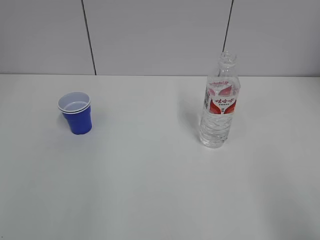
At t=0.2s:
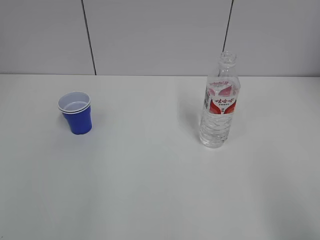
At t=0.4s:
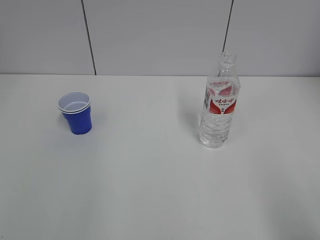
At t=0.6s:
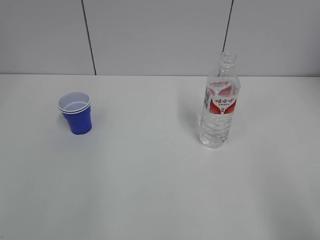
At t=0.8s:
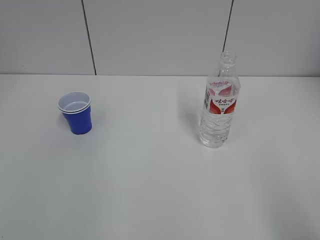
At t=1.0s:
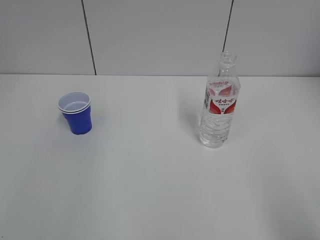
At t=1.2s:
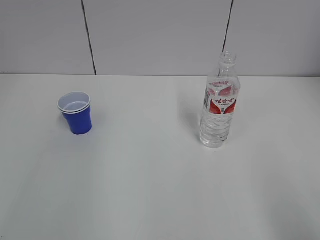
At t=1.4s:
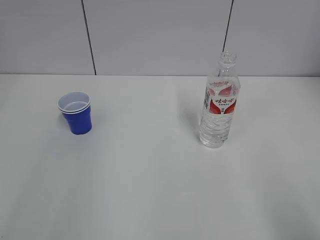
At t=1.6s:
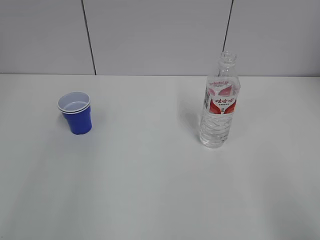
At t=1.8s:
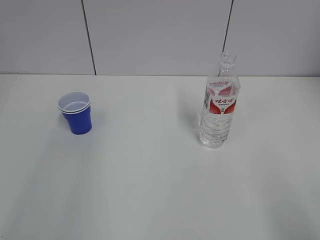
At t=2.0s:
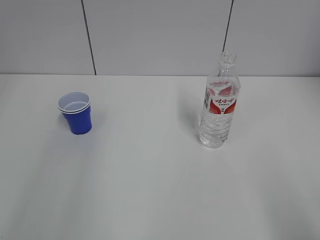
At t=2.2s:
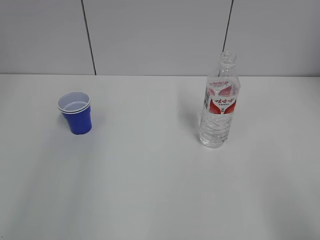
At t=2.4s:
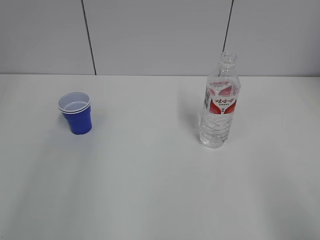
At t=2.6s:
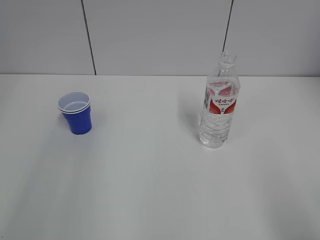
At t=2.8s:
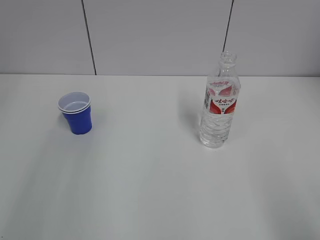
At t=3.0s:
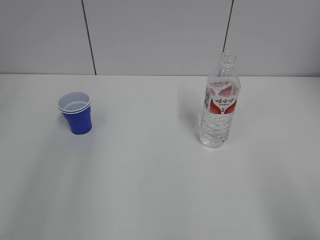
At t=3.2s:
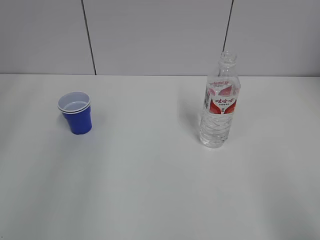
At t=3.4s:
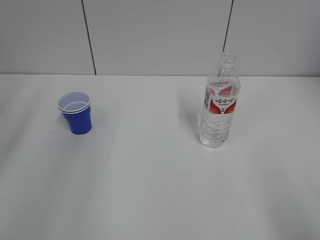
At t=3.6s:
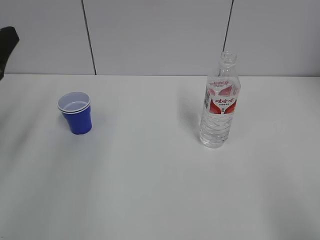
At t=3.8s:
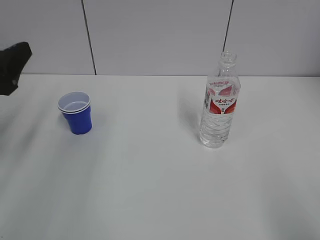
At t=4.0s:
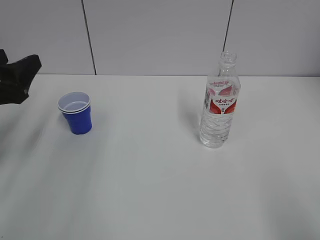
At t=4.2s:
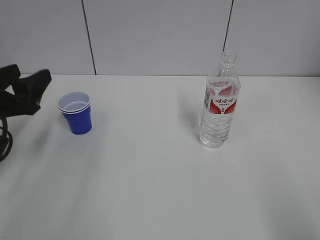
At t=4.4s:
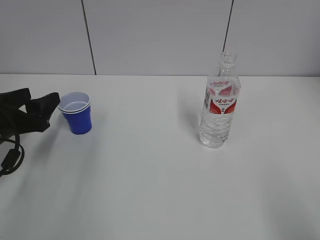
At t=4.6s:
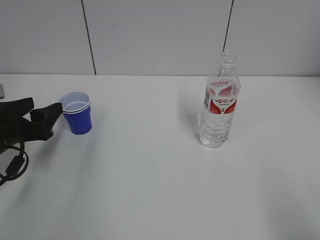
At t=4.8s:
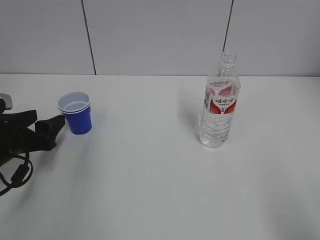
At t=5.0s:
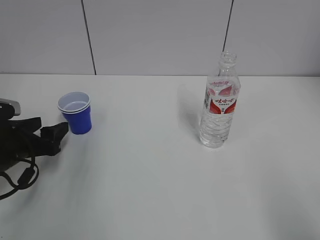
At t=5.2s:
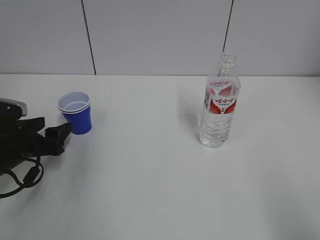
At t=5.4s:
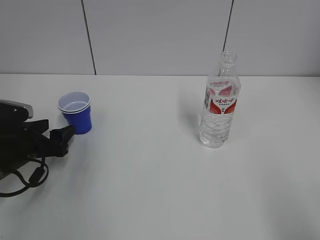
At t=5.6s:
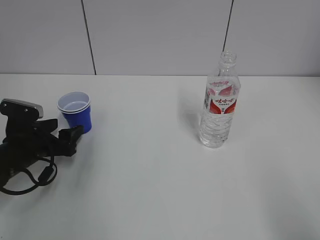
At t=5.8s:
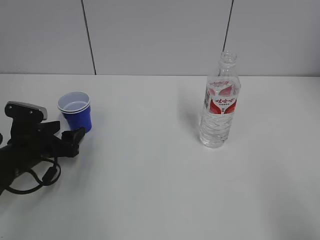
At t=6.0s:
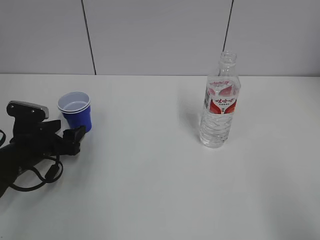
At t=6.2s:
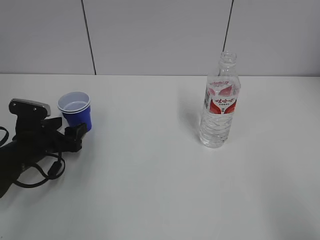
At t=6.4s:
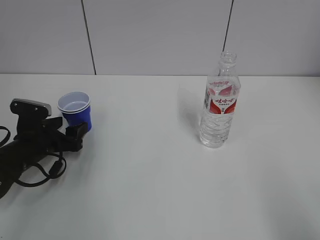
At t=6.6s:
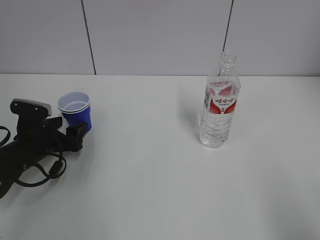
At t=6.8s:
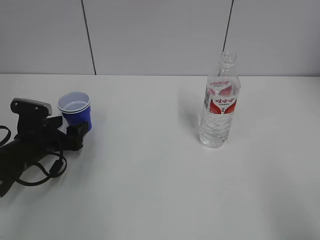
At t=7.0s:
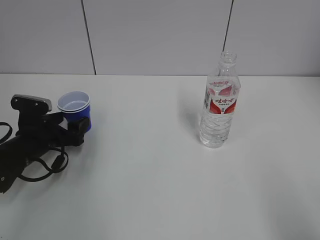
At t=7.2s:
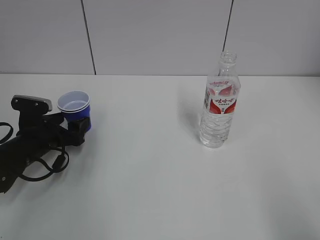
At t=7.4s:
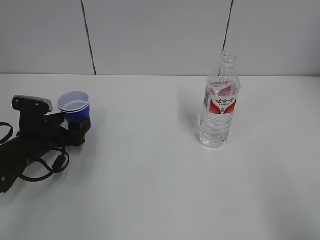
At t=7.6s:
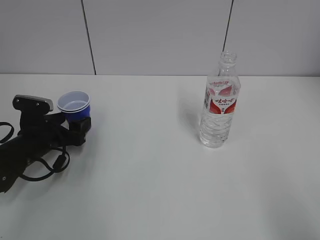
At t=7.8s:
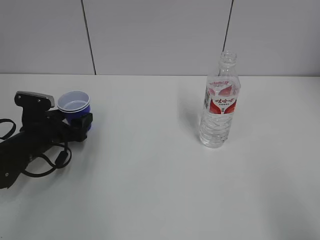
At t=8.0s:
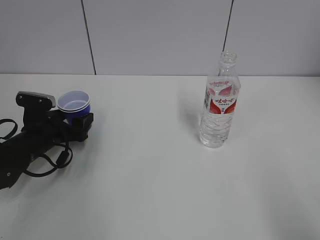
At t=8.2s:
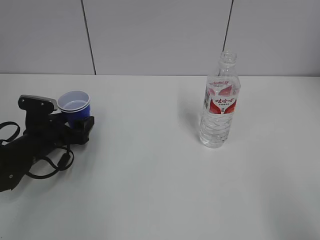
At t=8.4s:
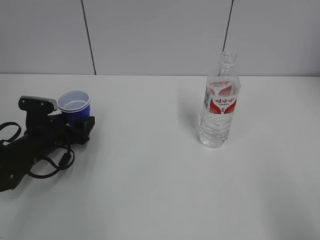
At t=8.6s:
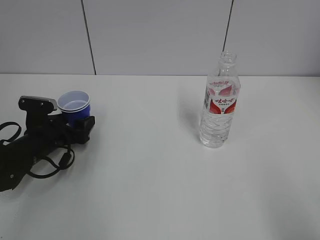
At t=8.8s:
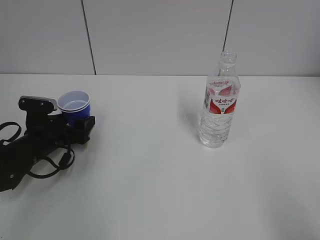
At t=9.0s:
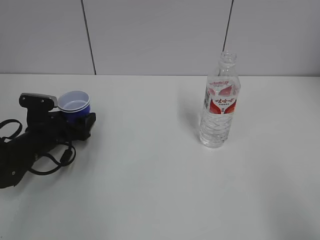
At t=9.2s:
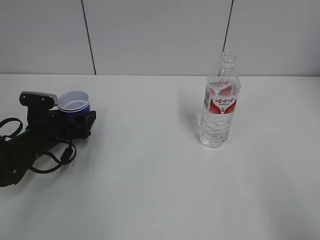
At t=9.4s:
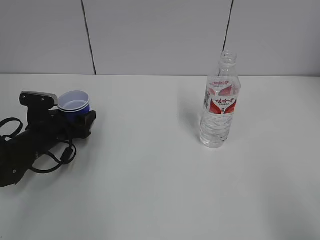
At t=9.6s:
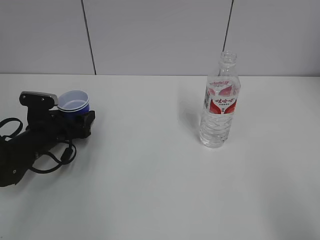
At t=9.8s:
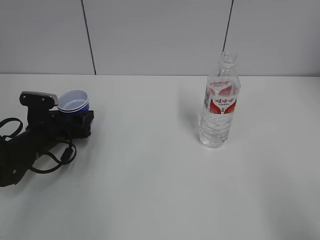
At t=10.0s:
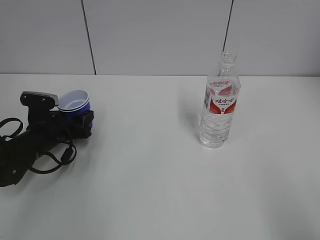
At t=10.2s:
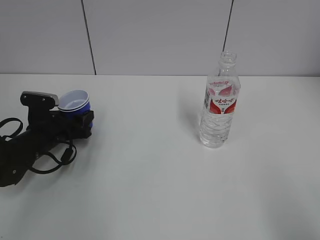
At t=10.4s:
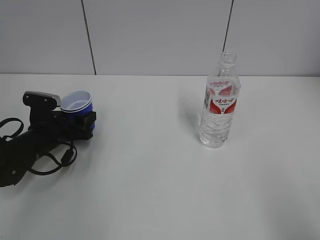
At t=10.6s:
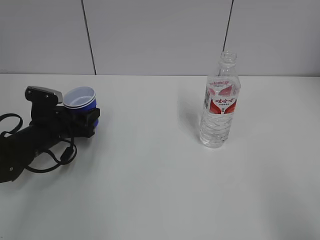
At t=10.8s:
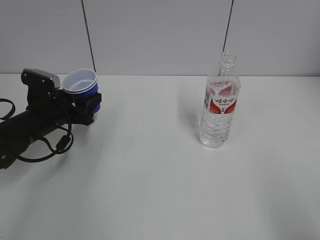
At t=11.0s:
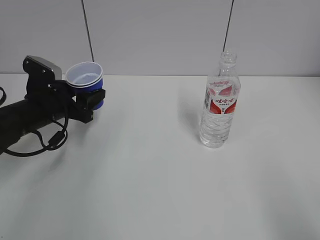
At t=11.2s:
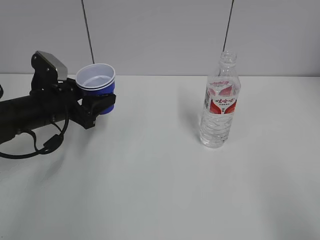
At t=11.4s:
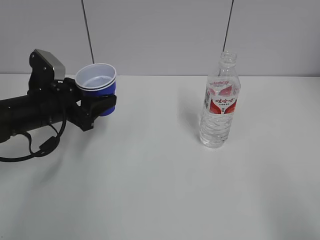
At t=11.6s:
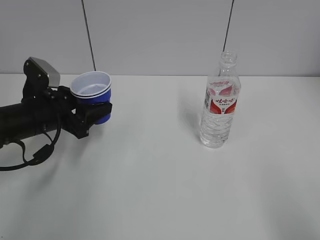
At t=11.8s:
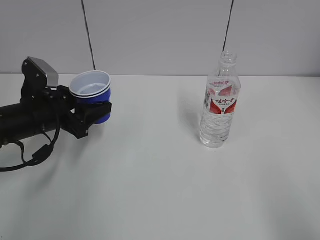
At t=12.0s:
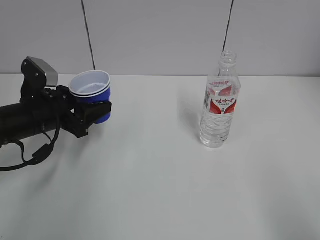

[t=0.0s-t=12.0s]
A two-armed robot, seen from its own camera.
Step, t=0.0s to t=9.8s: Grab the paper cup with the left hand.
t=3.0s to t=4.4s: The left gripper is displaced downward and forward by approximately 20 cm.
t=4.4s to t=6.0s: The left gripper travels downward by roughly 10 cm.
t=6.0s to t=9.0s: The grippers make only small movements.
t=9.0s to t=10.4s: The left gripper closes its fingers.
t=10.4s to t=12.0s: The left gripper shifts roughly 10 cm upward.

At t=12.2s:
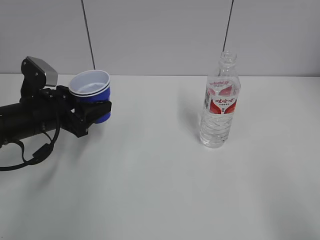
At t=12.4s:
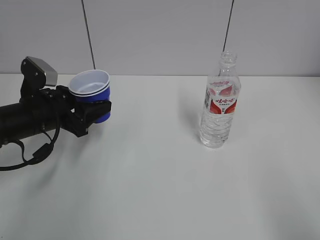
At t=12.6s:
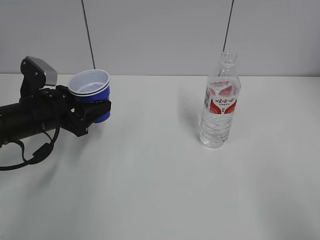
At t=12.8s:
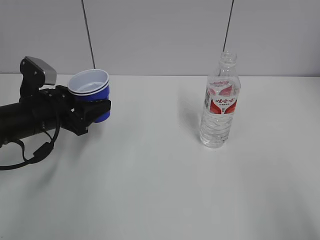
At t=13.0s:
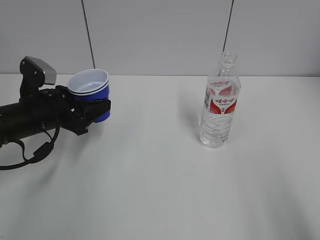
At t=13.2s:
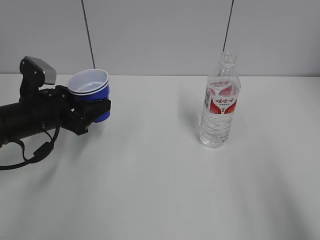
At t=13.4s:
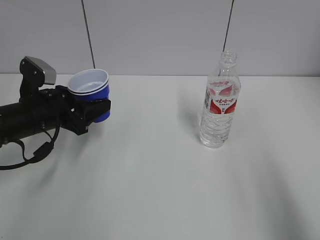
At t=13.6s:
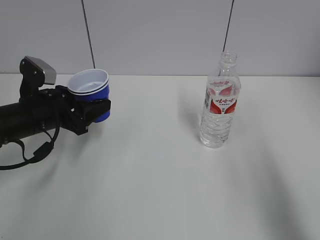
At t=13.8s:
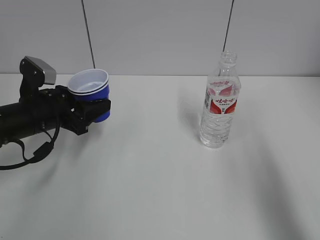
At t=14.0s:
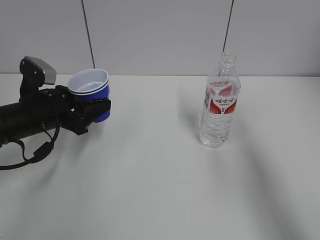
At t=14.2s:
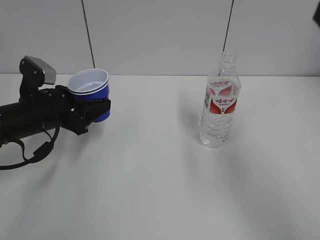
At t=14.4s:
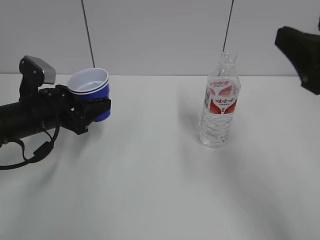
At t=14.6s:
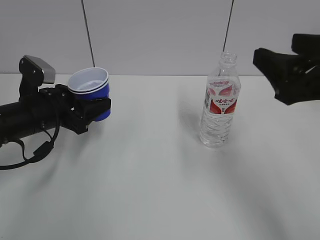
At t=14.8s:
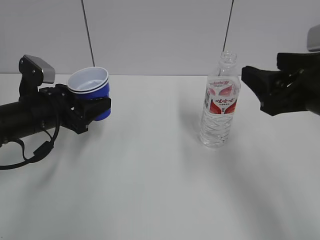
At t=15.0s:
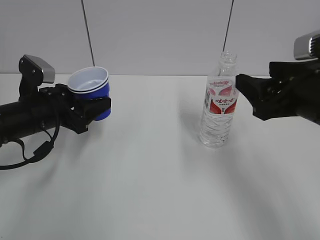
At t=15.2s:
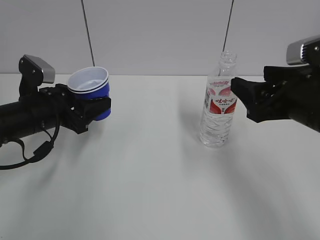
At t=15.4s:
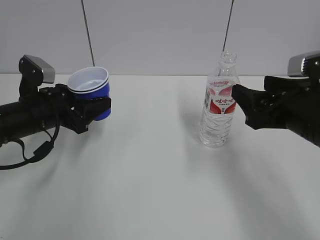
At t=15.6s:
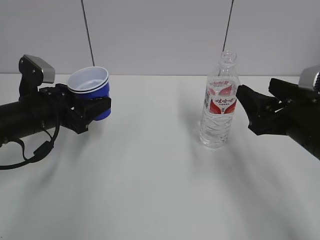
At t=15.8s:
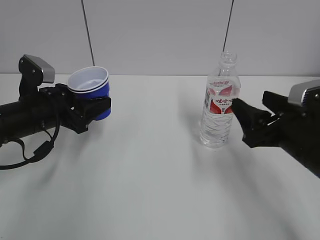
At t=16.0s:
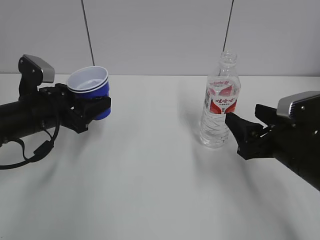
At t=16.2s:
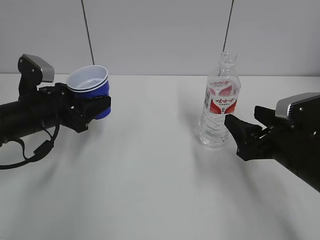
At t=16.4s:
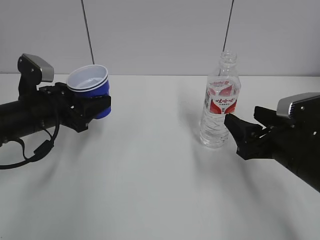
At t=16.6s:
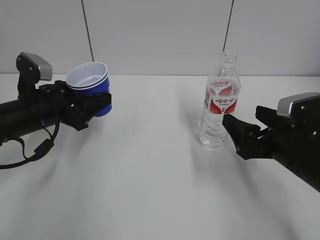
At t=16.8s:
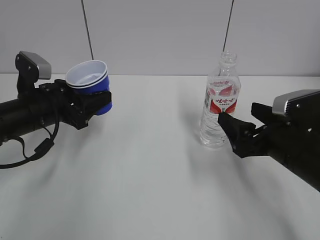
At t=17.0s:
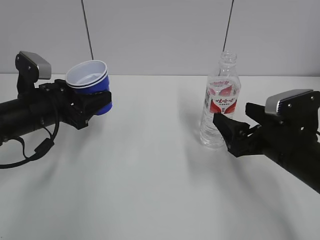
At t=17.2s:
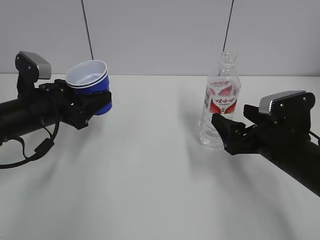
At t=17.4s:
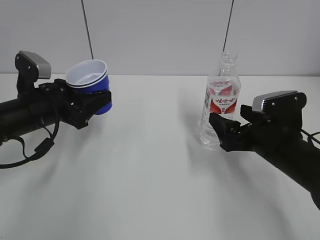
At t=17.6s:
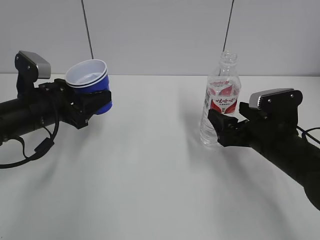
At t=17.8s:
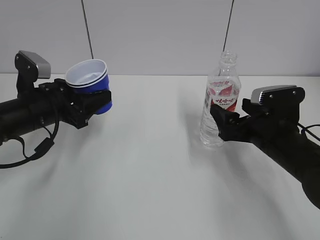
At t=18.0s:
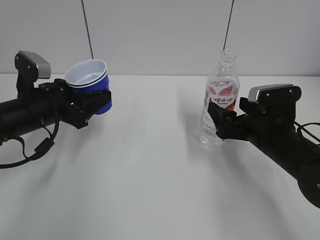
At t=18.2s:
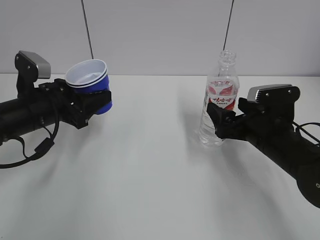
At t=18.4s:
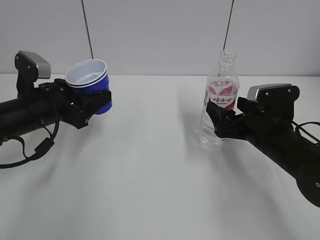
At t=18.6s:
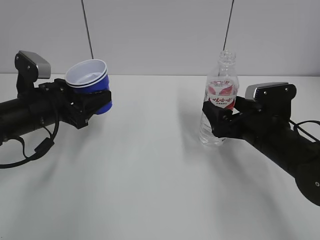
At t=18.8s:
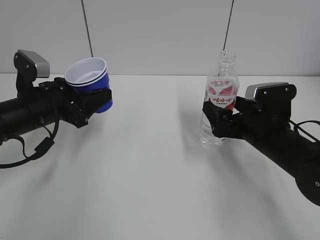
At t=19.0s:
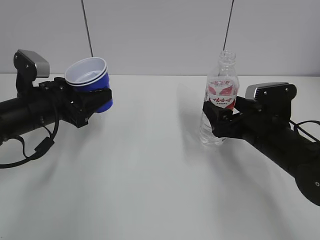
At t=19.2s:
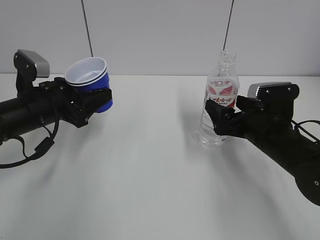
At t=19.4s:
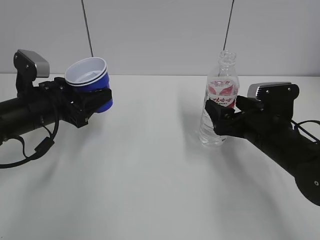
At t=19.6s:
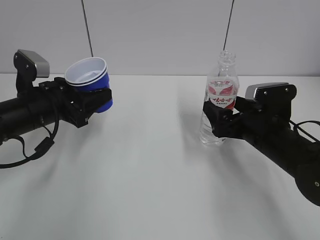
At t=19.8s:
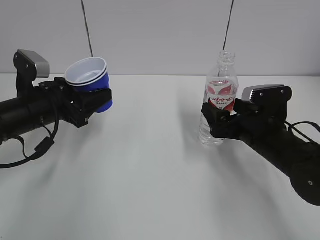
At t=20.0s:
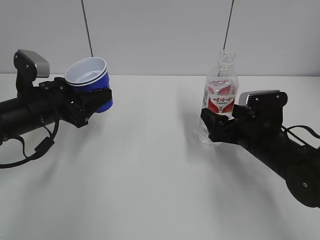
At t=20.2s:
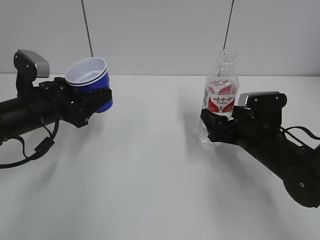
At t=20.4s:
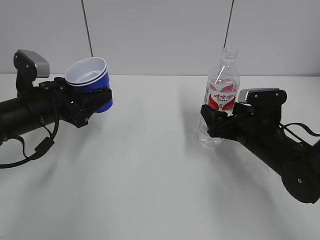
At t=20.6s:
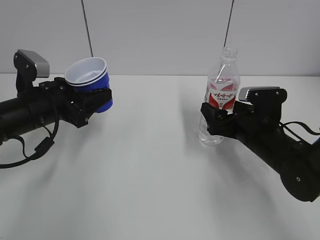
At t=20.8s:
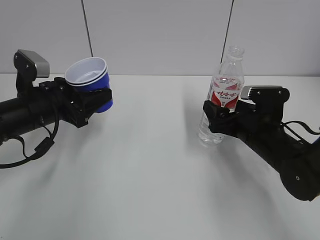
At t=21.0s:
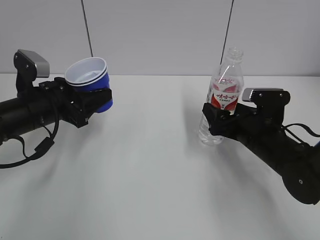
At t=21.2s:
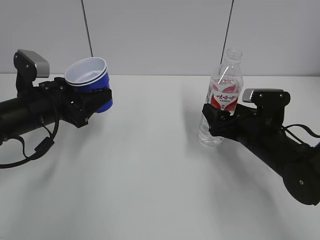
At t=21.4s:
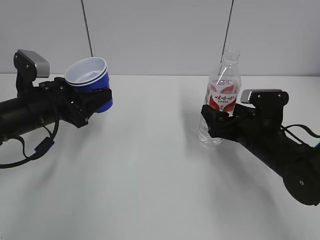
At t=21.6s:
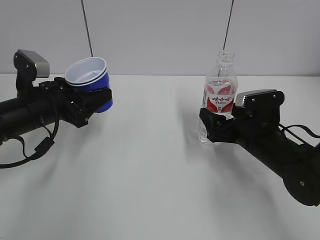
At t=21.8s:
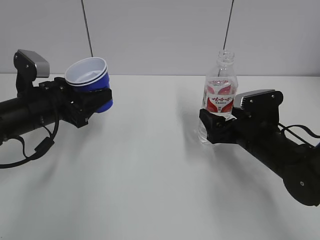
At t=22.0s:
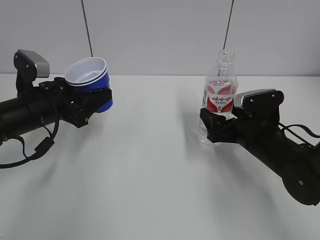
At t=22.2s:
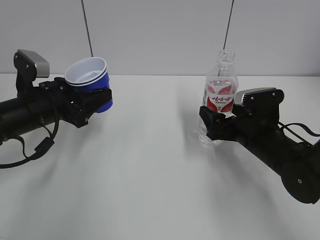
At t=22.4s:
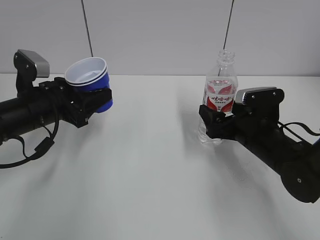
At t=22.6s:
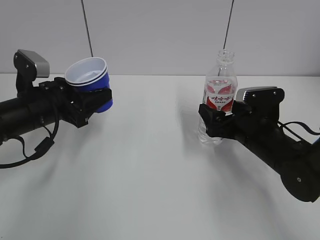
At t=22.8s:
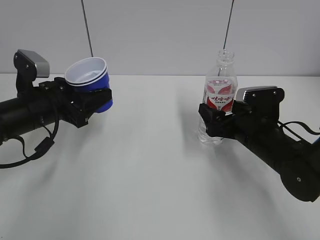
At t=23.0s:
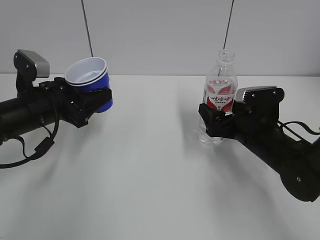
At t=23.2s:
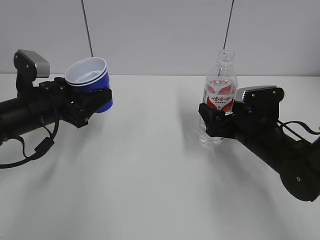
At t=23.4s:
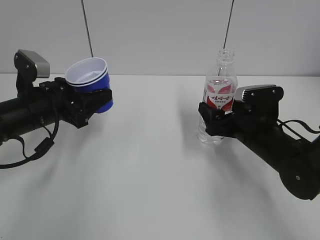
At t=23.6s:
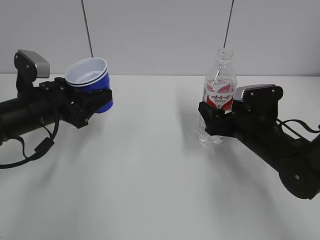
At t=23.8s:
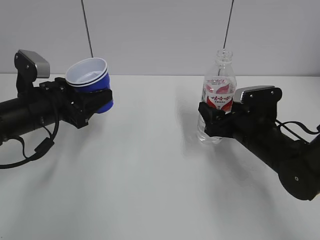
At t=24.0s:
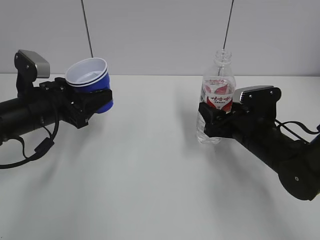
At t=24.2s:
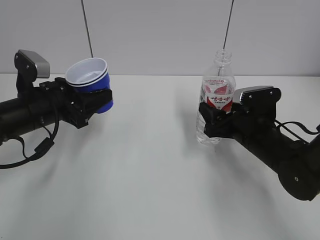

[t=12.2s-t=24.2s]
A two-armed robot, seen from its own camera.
Step, t=12.2s to t=24.2s: Grab the water bottle with the right hand.
t=12.2s to t=13.8s: The right gripper heads forward and upward, covering about 15 cm.
t=13.8s to t=15.2s: The right gripper is displaced forward, downward and to the left by about 20 cm.
t=15.2s to t=16.6s: The right gripper heads downward, covering approximately 10 cm, and opens up.
t=16.6s to t=18.2s: The right gripper is displaced forward by some 5 cm.
t=18.2s to t=19.8s: Both grippers stay put.
t=19.8s to t=22.6s: There are only small adjustments of the grippers.
t=22.6s to t=24.2s: The right gripper closes up.
